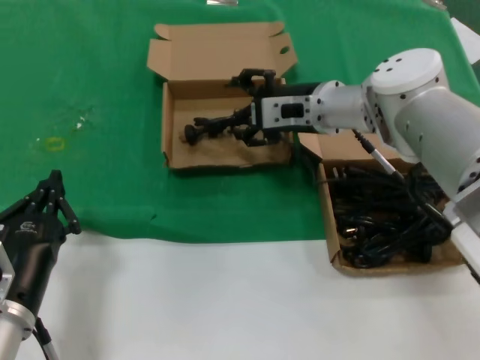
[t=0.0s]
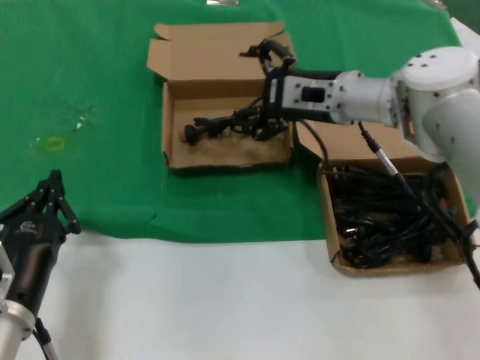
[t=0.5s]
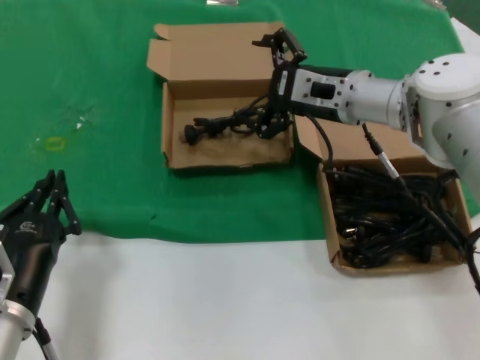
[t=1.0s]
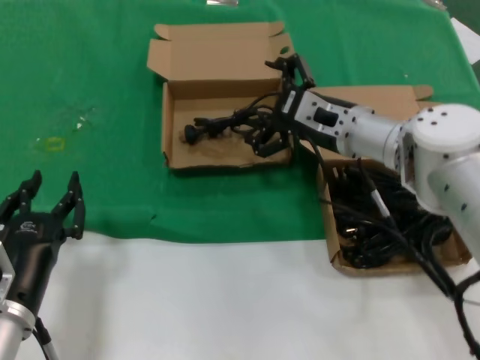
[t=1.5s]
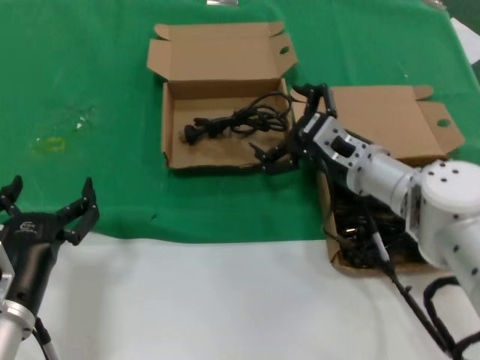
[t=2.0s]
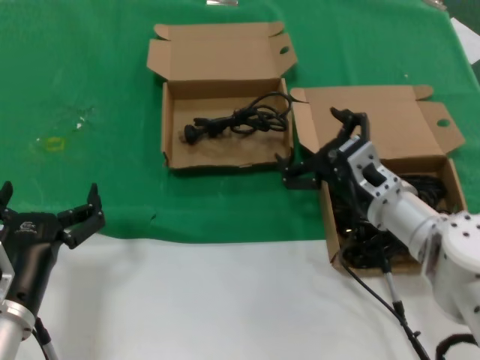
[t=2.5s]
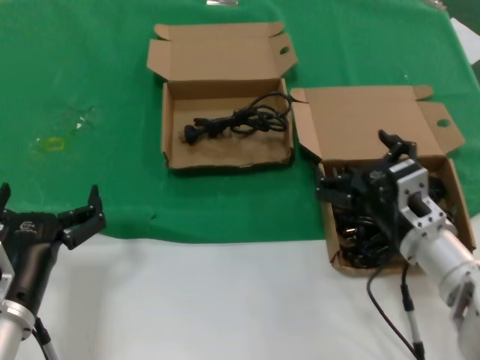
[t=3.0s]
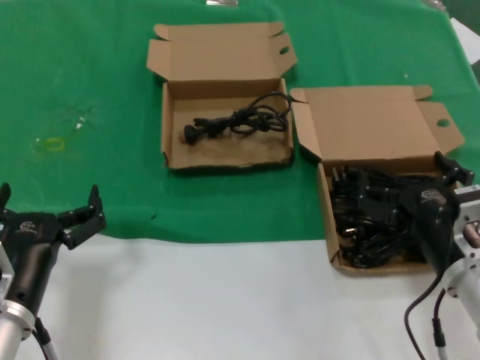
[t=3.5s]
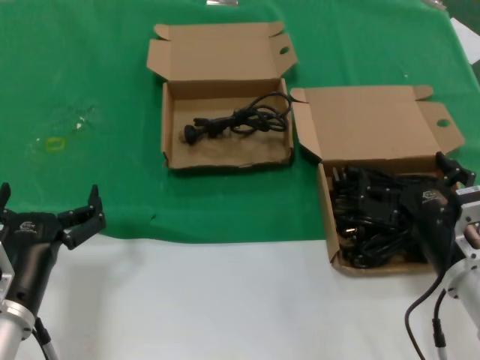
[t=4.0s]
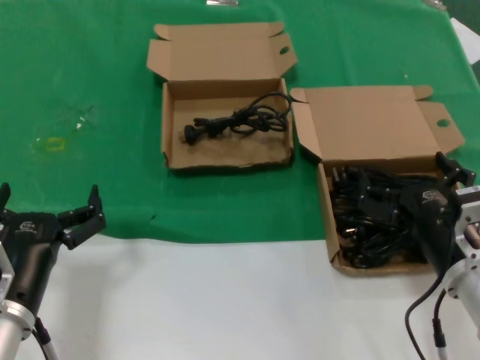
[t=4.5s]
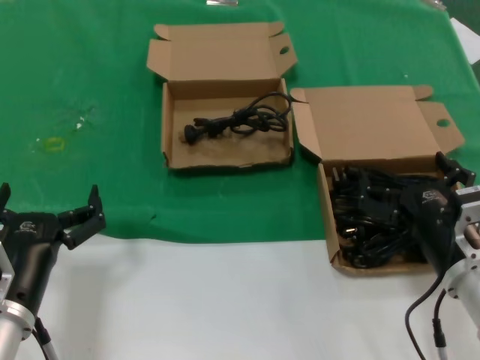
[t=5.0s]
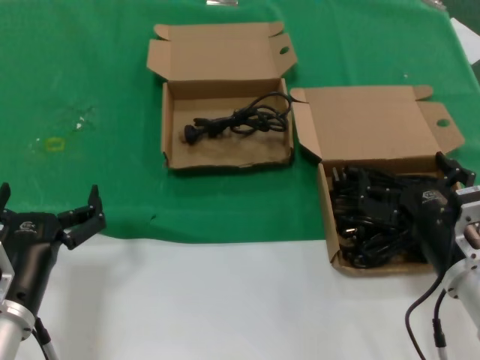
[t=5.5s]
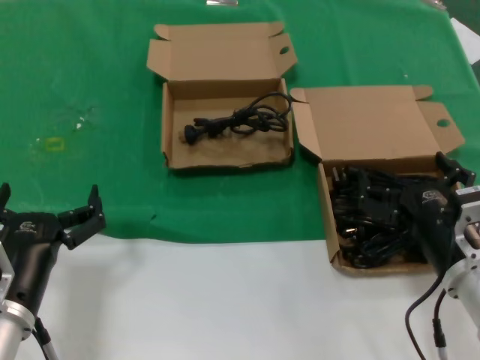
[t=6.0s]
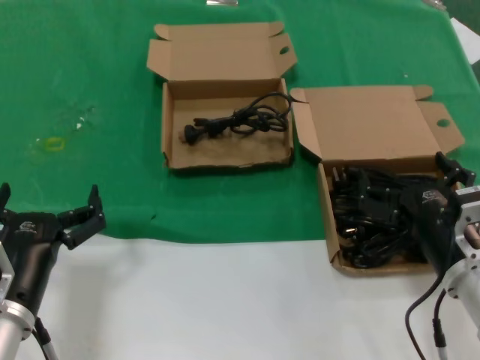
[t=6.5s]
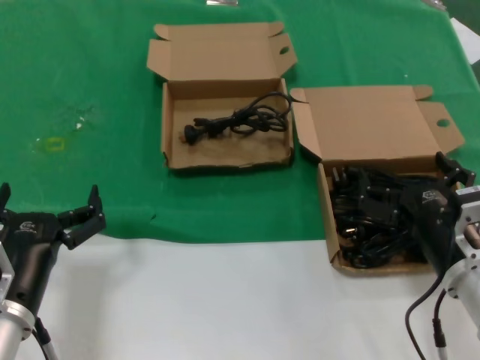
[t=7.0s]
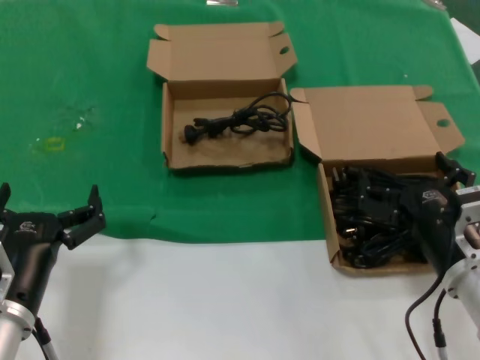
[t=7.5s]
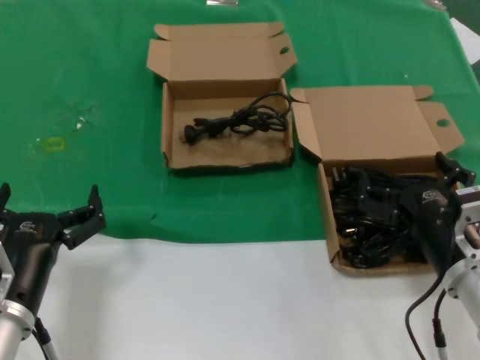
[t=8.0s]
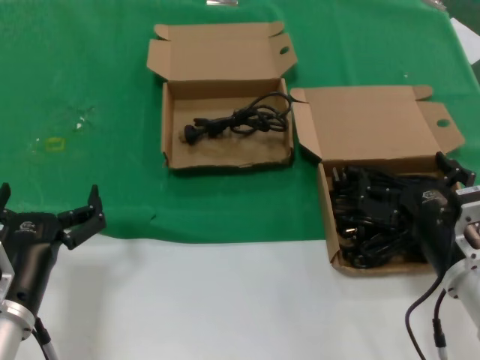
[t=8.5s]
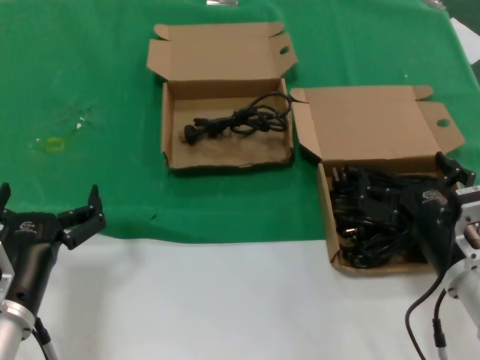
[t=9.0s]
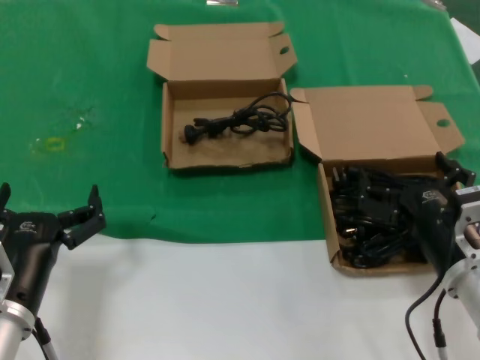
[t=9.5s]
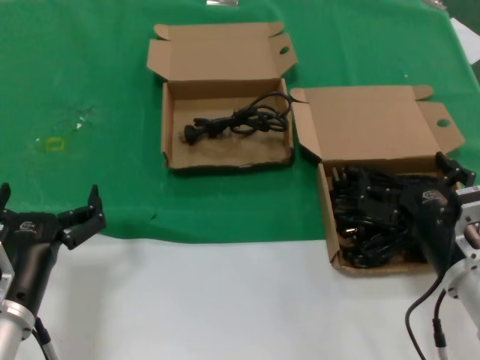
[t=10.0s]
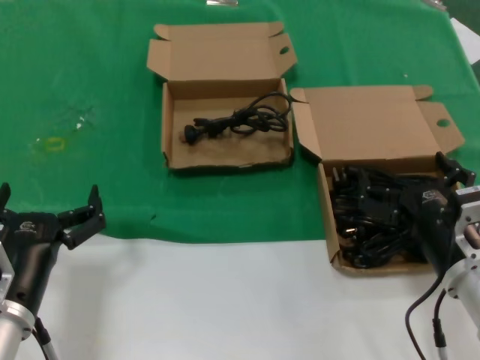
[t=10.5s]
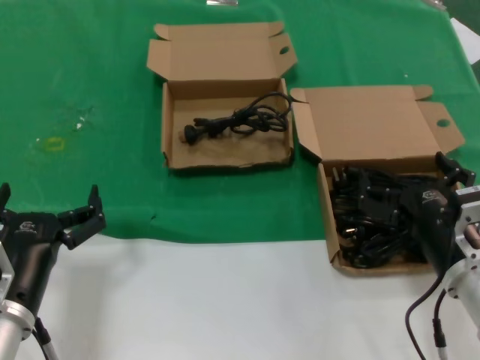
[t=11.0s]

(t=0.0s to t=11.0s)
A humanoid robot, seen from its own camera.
Task of the whole recording: take the parts from the box containing them and put them into an empty box.
t=0.0s - t=2.0s: The right hand goes some 10 cm downward and backward.
t=2.0s - t=3.5s: The right hand goes roughly 15 cm backward.
t=3.5s - t=11.0s: Neither hand changes place.
